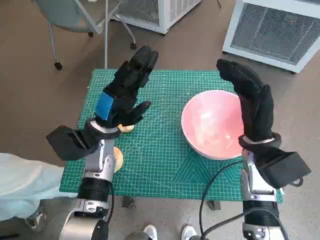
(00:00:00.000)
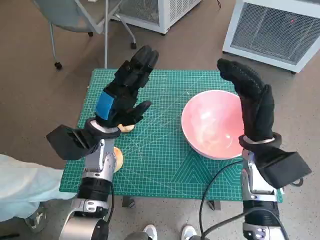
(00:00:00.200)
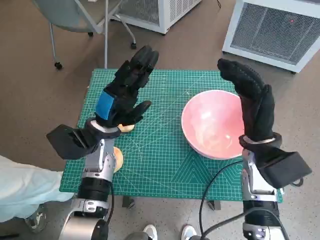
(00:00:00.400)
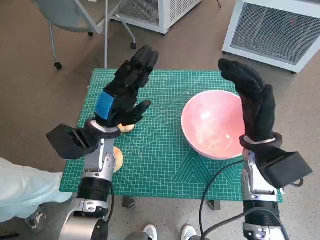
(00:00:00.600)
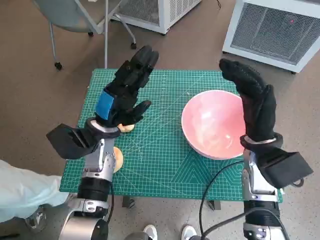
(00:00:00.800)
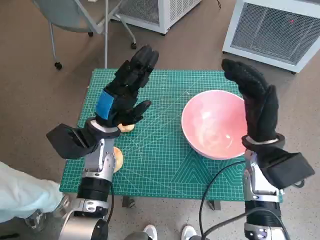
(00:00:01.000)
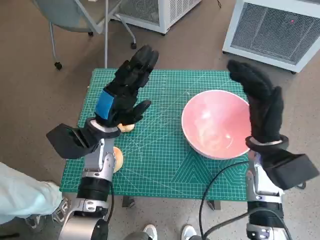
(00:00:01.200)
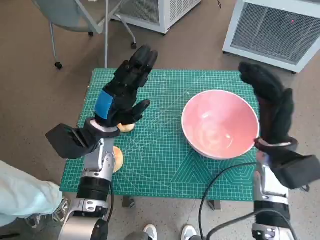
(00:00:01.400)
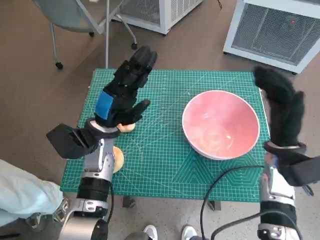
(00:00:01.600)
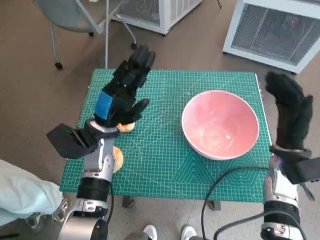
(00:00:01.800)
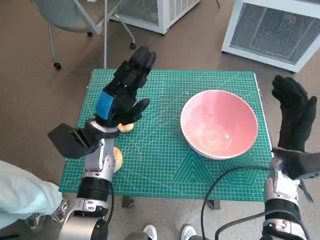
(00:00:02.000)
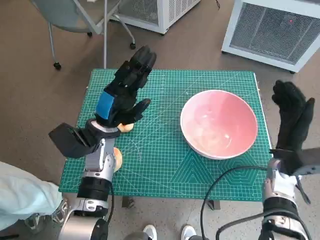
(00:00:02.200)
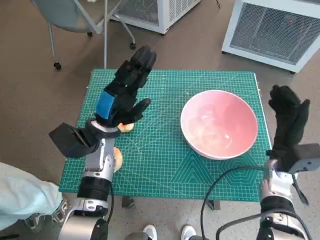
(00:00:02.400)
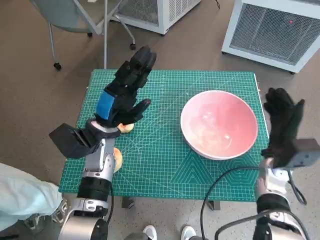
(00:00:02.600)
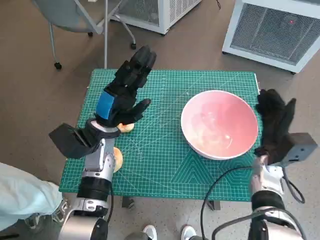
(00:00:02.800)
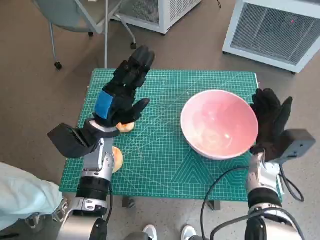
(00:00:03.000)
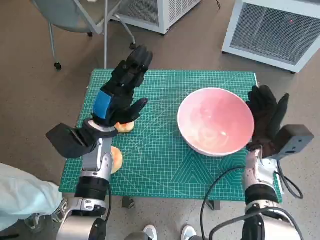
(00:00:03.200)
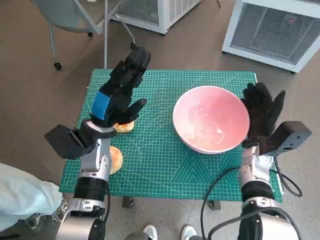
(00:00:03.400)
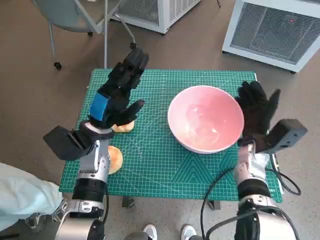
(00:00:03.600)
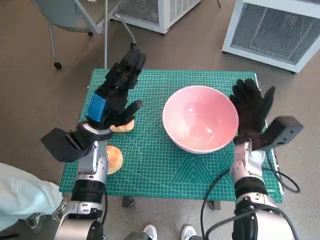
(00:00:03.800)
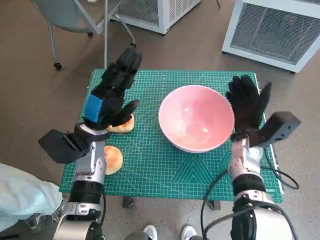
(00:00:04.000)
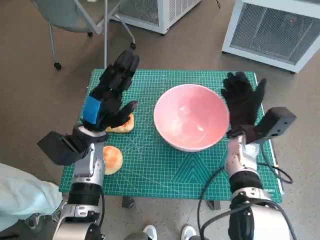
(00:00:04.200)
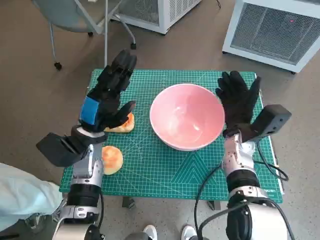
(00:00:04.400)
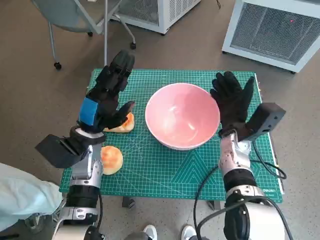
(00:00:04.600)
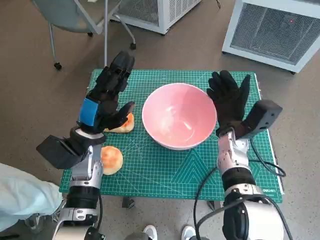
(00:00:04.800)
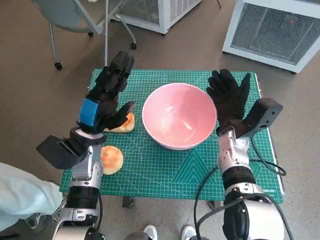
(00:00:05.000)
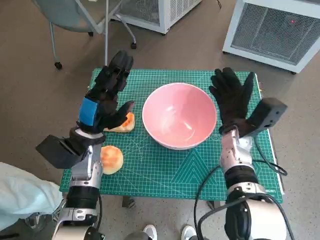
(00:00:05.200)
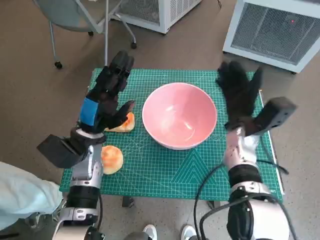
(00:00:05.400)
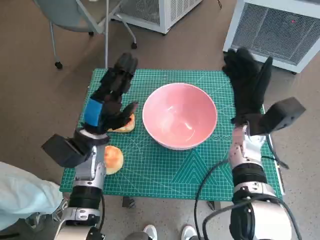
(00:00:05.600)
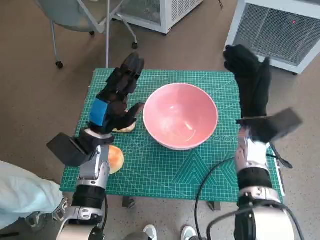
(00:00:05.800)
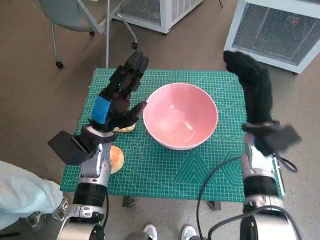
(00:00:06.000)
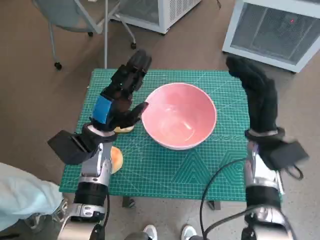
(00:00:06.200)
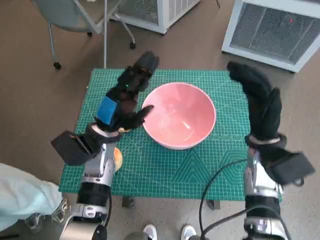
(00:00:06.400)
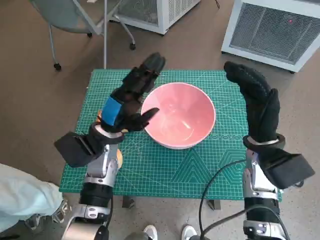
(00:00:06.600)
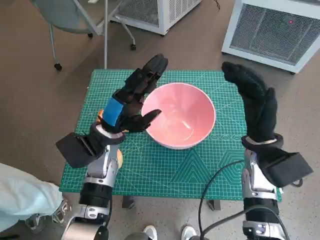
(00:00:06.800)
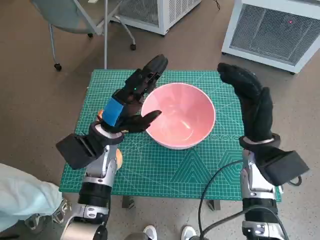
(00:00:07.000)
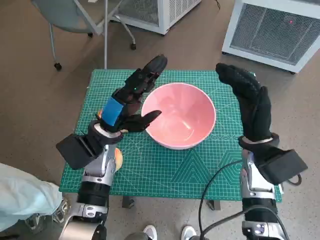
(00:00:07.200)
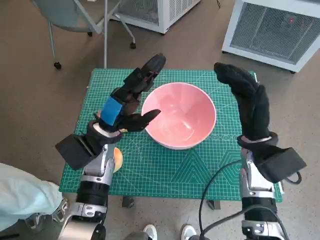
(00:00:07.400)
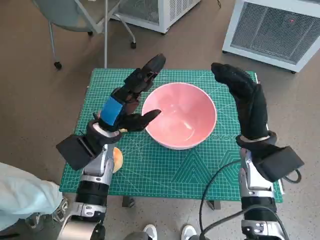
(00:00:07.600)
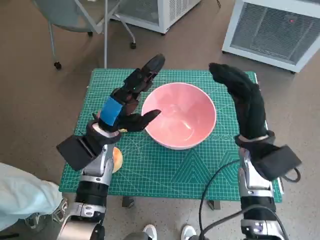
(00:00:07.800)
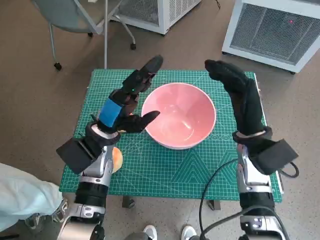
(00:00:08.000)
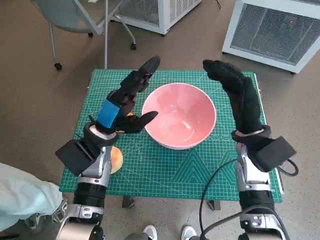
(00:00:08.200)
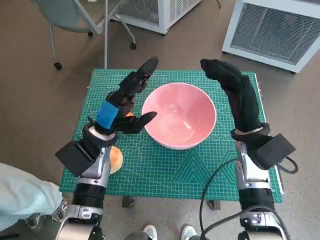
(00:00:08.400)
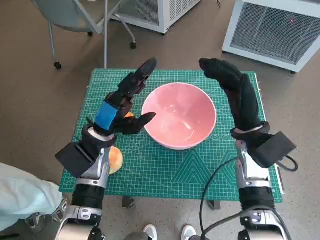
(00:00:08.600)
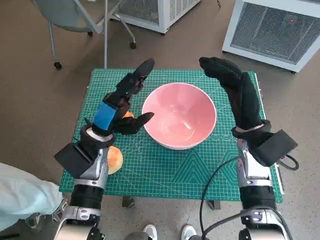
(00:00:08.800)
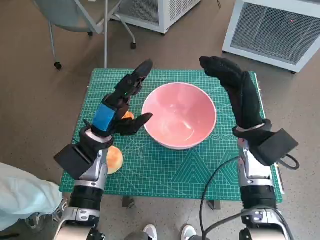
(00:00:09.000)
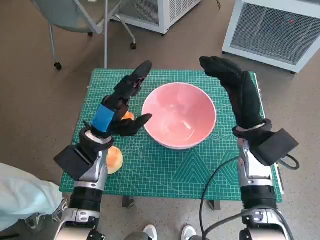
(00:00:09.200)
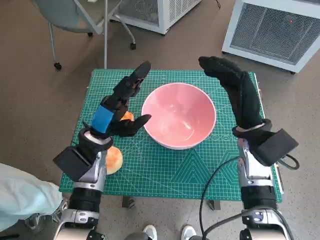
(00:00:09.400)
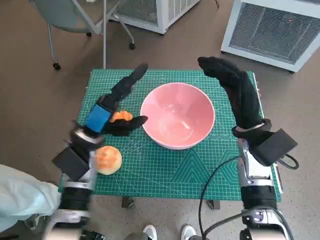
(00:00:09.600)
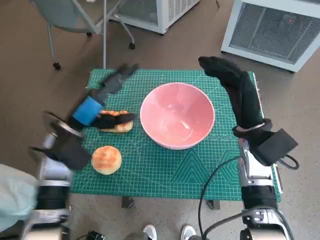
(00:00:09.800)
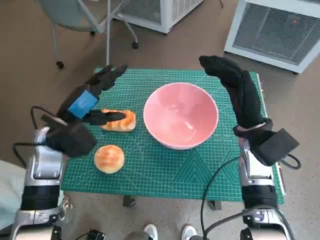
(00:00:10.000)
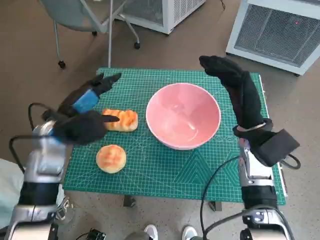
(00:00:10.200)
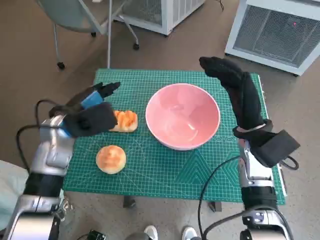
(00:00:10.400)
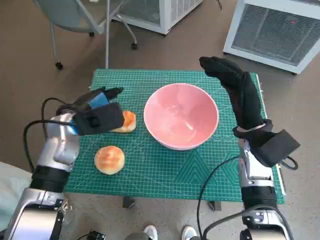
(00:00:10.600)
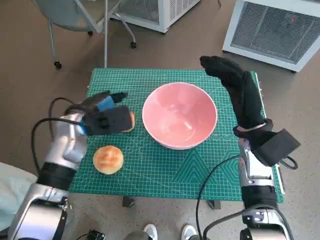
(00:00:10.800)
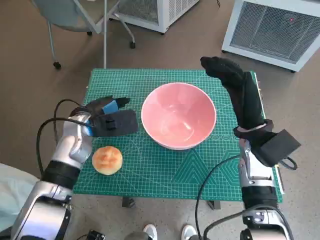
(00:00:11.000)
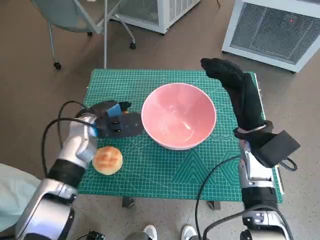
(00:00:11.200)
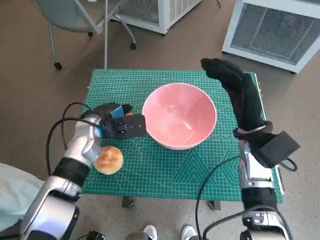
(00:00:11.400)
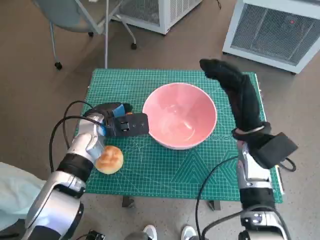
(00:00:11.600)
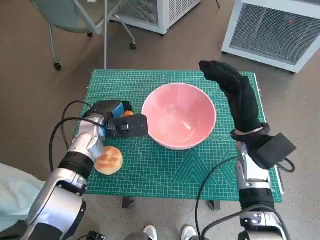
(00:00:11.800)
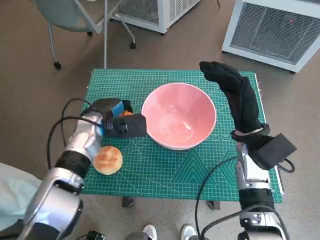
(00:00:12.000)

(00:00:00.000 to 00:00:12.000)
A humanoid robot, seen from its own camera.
Task of the whole recording: Push the bowl into the center of the table and put the bread into the bowl.
Step, 00:00:00.000 - 00:00:05.200: Move the pink bowl to the center of table with right hand.
Step, 00:00:05.400 - 00:00:11.600: Grasp the long bread with left hand.
00:00:01.600 - 00:00:03.000: The right hand is displaced downward by about 5 cm.
00:00:03.000 - 00:00:04.400: The right hand heads to the left, covering about 5 cm.
00:00:04.400 - 00:00:06.000: The right hand changes place by some 5 cm.
00:00:07.600 - 00:00:09.000: The hands move only a little.
00:00:09.000 - 00:00:10.400: The left hand shifts roughly 5 cm to the left.
00:00:10.400 - 00:00:12.000: The left hand heads downward, covering approximately 5 cm.

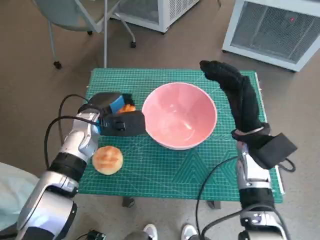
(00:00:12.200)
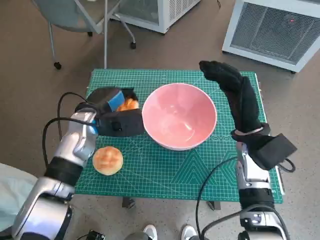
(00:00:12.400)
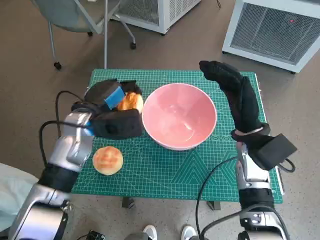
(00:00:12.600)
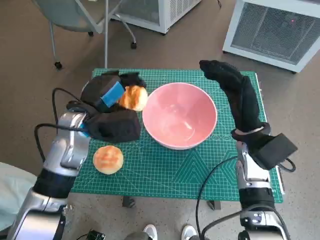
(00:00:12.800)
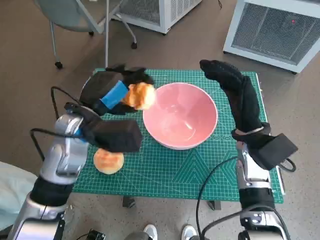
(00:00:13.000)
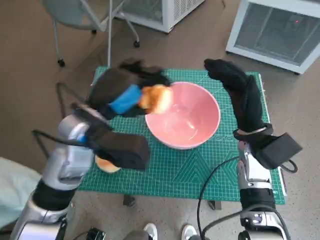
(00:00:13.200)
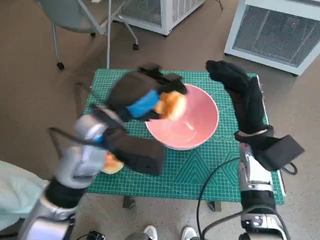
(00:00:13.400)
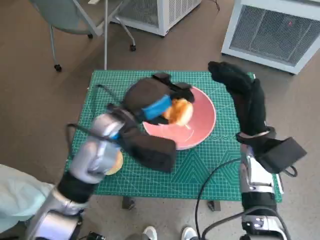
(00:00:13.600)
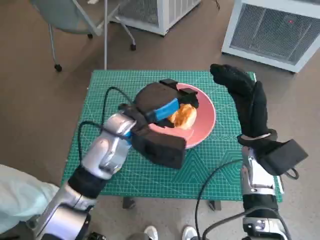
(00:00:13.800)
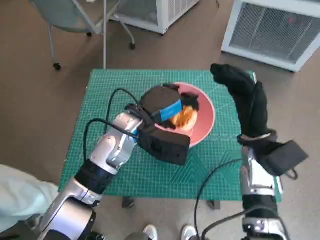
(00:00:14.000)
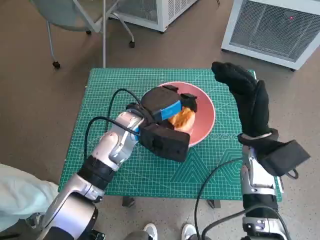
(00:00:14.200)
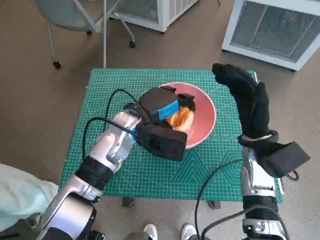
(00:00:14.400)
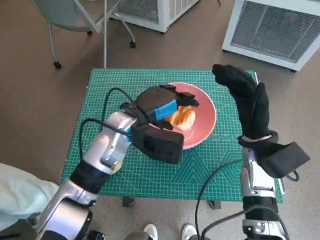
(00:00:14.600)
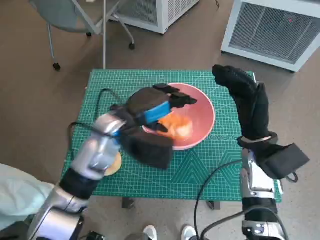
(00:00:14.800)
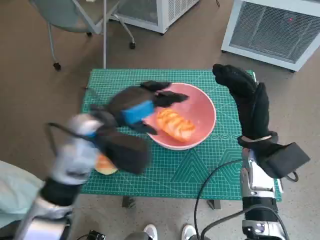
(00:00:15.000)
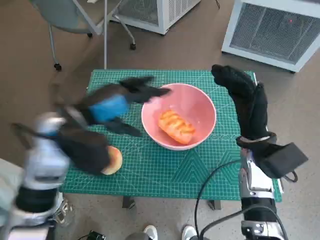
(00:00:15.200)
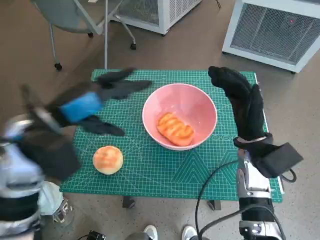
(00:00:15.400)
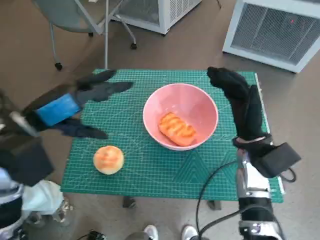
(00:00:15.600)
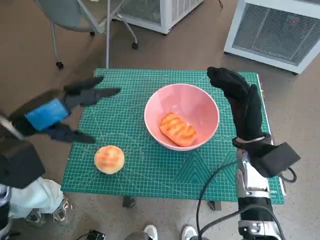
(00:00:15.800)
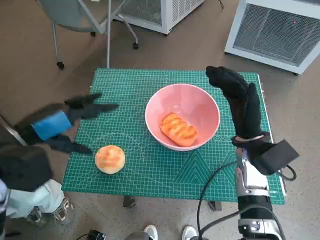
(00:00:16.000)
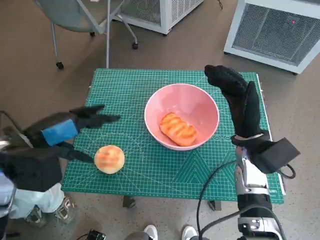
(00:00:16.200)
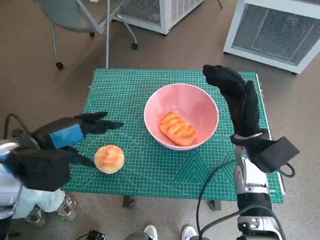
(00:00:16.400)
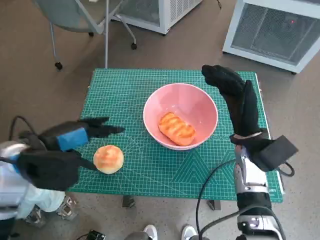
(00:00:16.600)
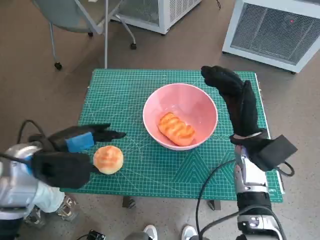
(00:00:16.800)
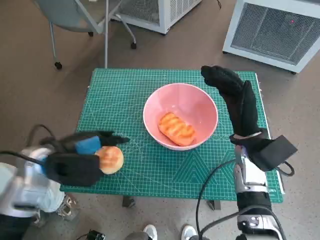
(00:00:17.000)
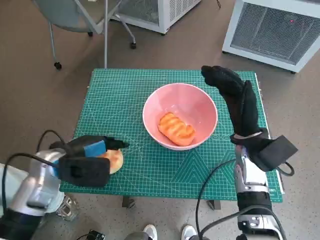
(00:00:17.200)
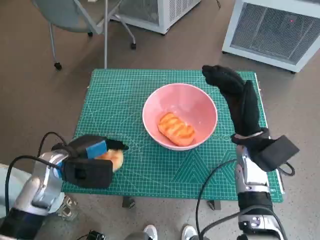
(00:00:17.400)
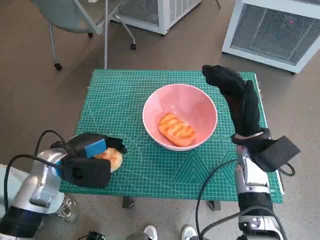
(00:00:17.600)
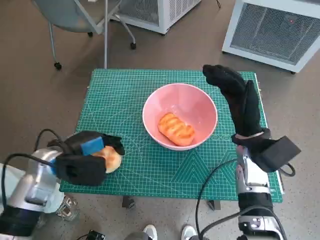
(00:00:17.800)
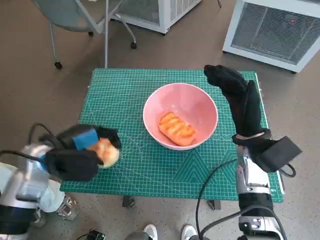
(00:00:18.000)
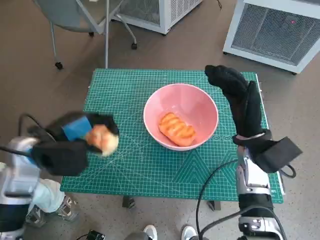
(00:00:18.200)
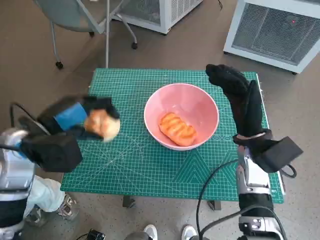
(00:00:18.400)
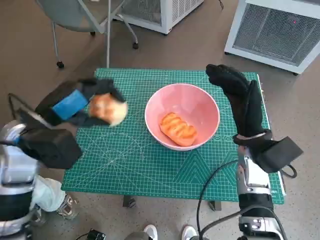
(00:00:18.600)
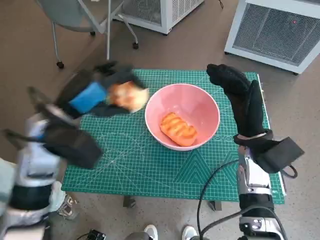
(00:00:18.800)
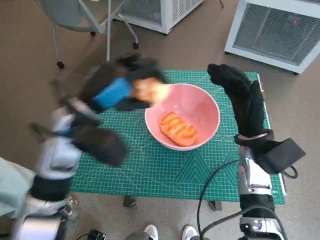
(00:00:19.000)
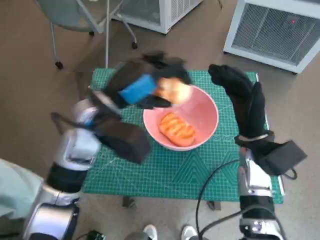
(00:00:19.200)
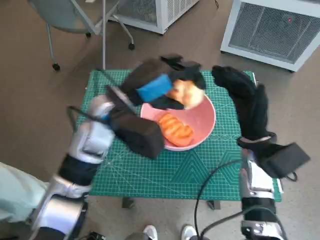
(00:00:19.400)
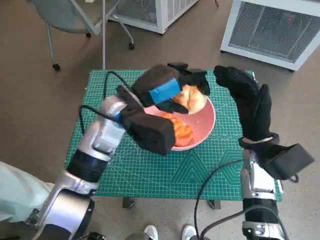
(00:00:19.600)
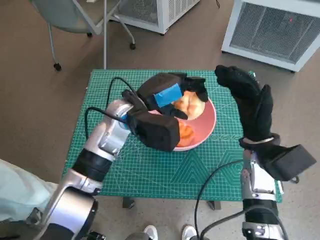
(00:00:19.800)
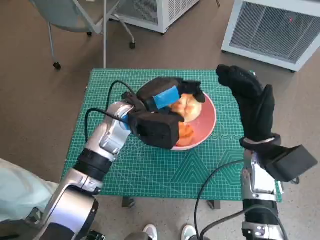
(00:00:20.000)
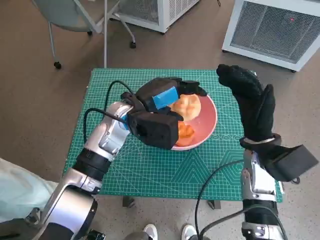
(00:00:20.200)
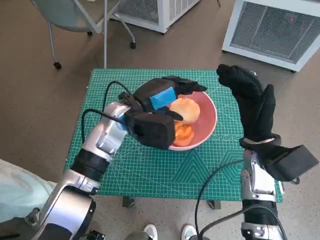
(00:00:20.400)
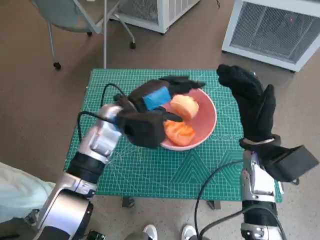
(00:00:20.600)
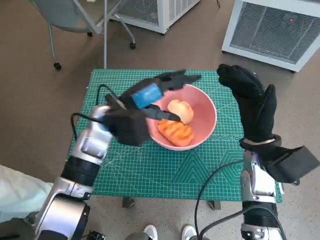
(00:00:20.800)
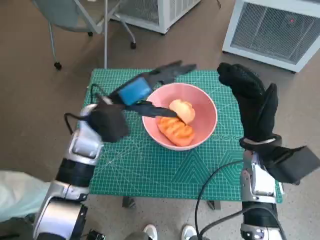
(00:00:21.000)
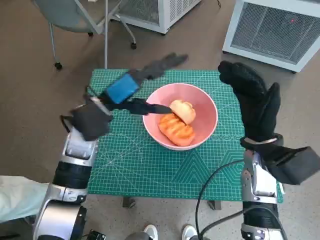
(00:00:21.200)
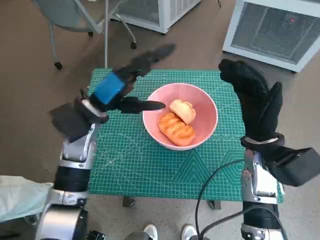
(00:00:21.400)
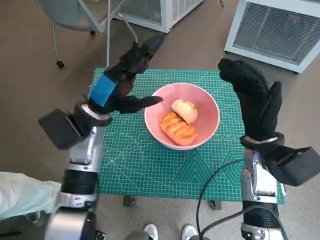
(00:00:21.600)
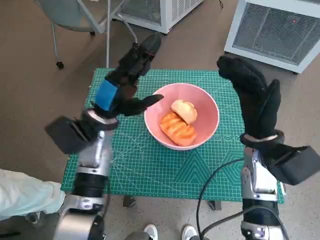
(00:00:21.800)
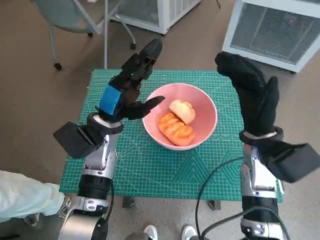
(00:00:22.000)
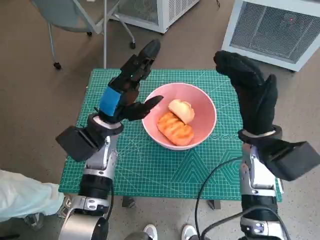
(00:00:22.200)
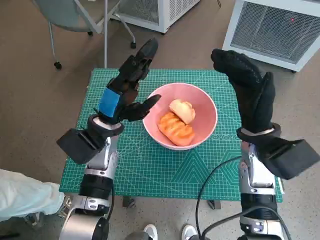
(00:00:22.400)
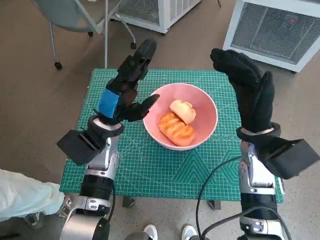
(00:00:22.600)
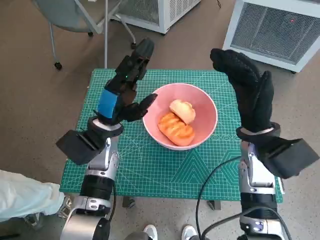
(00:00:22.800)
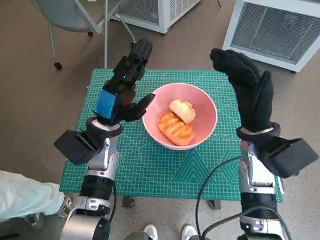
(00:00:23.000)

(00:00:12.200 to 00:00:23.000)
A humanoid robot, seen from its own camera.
Task of the whole recording: Push the bowl into the center of the table and put the bread into the bowl.
Step, 00:00:12.200 - 00:00:14.600: Place the long bread in pink bowl with left hand.
Step, 00:00:15.000 - 00:00:17.400: Grasp the round bread with left hand.
Step, 00:00:17.600 - 00:00:20.200: Place the round bread in pink bowl with left hand.
00:00:12.200 - 00:00:13.800: The left hand moves to the right and upward, approximately 10 cm.
00:00:13.800 - 00:00:15.200: The left hand travels to the left by some 10 cm.
00:00:15.200 - 00:00:16.800: The left hand is displaced to the left by about 5 cm.
00:00:16.800 - 00:00:18.400: The left hand reaches about 5 cm downward, then returns.
00:00:18.400 - 00:00:20.000: The left hand is displaced to the right and forward by roughly 15 cm.
00:00:20.000 - 00:00:21.400: The left hand shifts roughly 5 cm to the left.
00:00:21.400 - 00:00:23.000: The left hand travels downward by about 5 cm.
